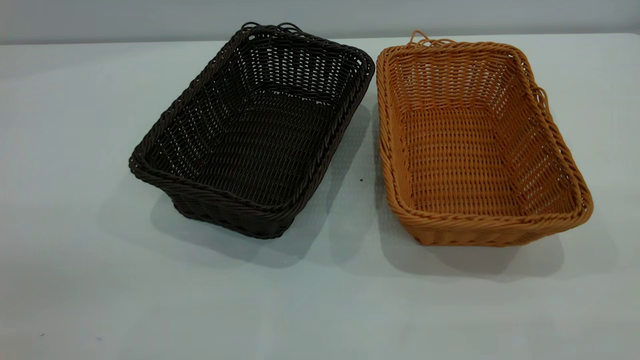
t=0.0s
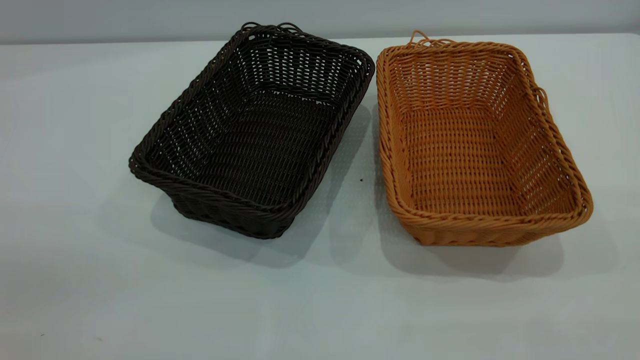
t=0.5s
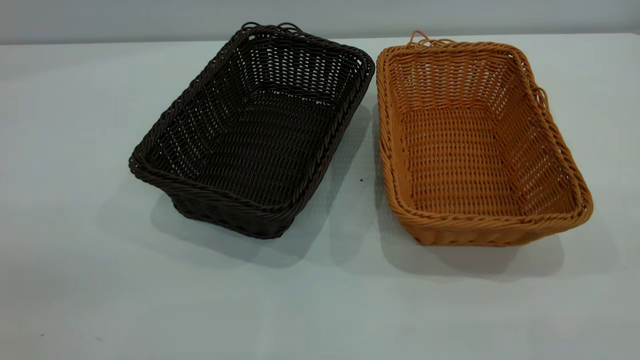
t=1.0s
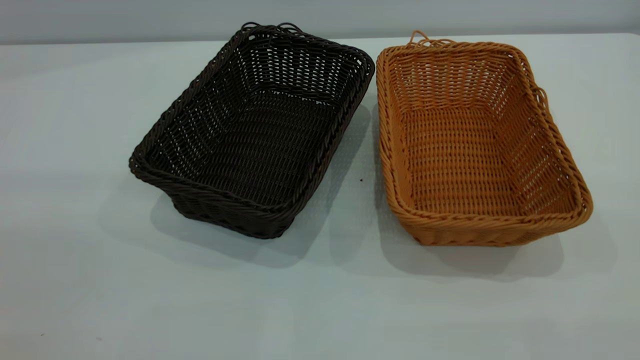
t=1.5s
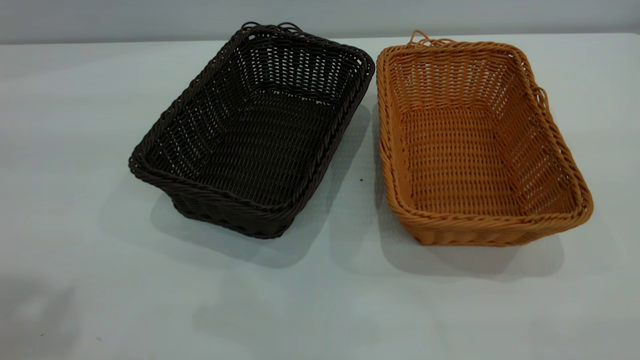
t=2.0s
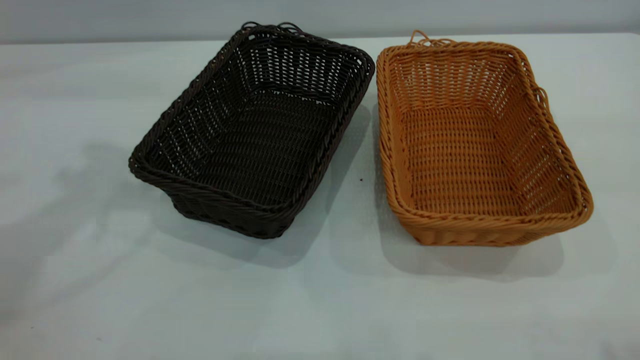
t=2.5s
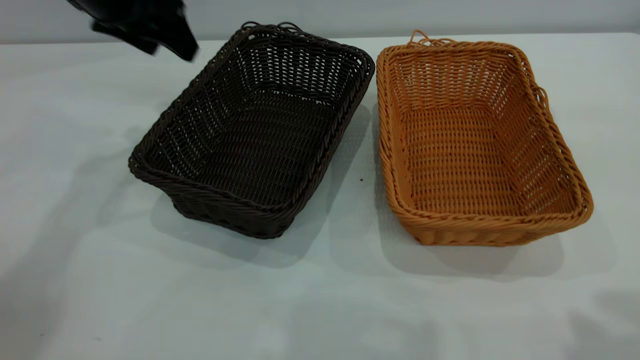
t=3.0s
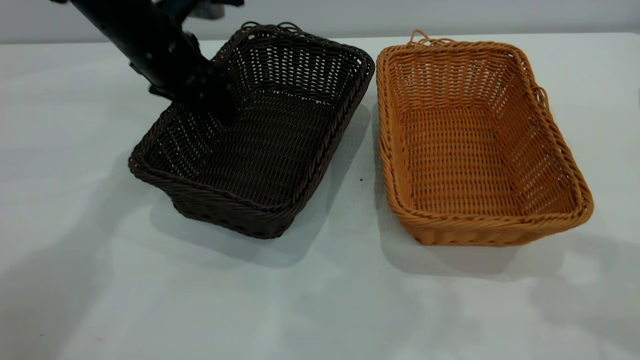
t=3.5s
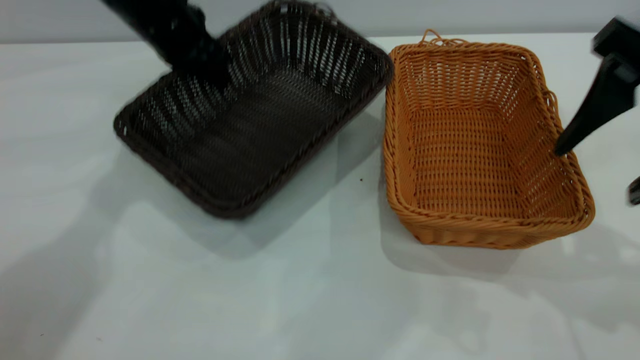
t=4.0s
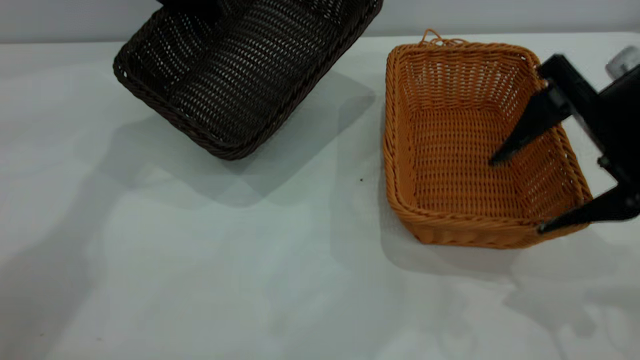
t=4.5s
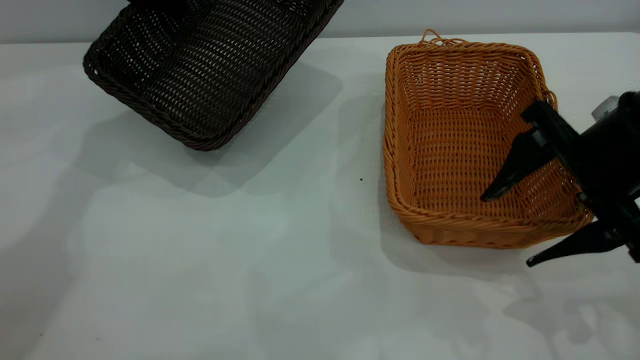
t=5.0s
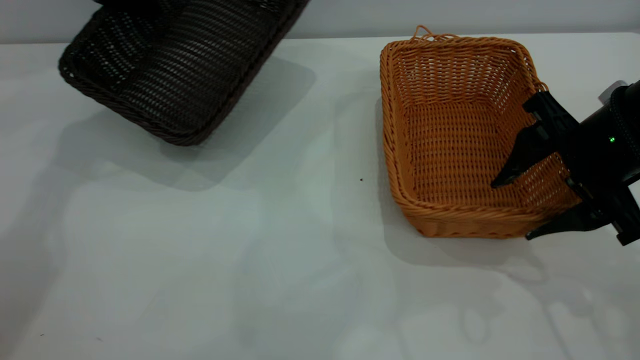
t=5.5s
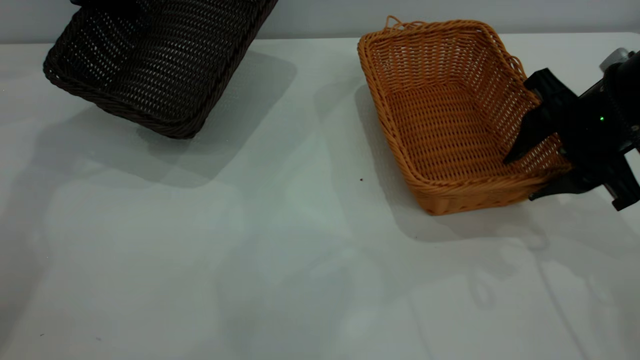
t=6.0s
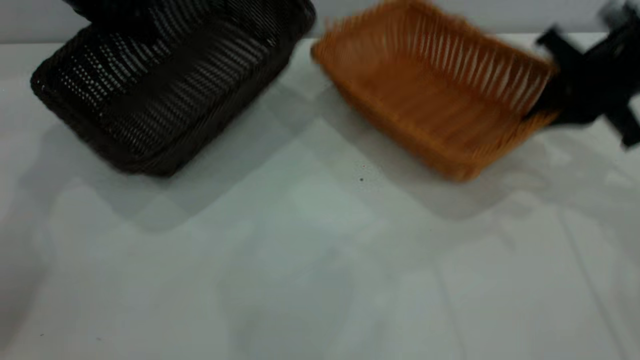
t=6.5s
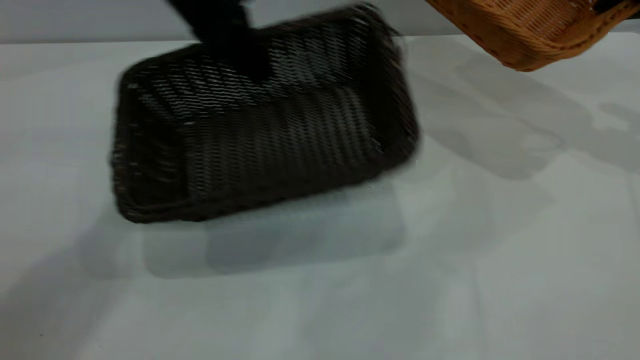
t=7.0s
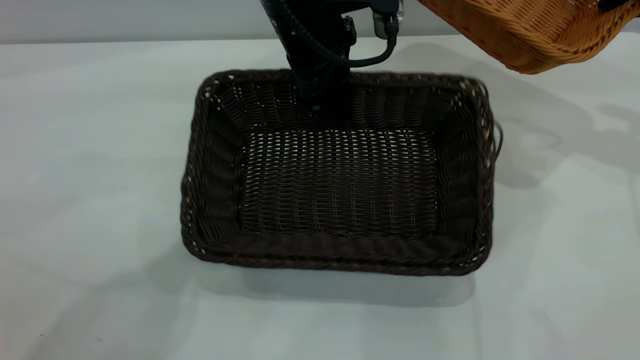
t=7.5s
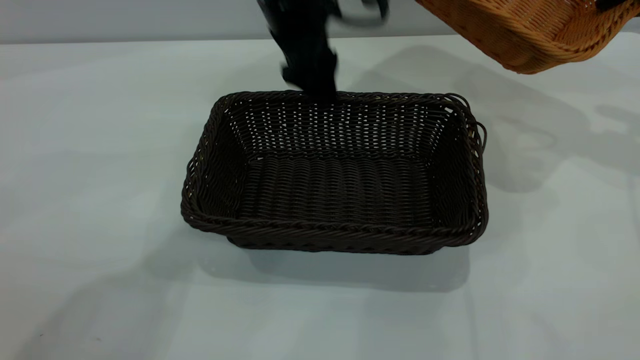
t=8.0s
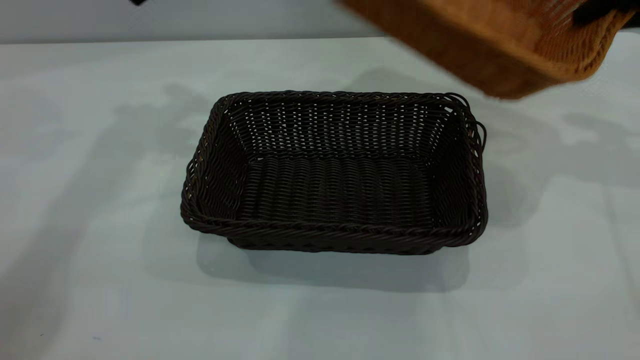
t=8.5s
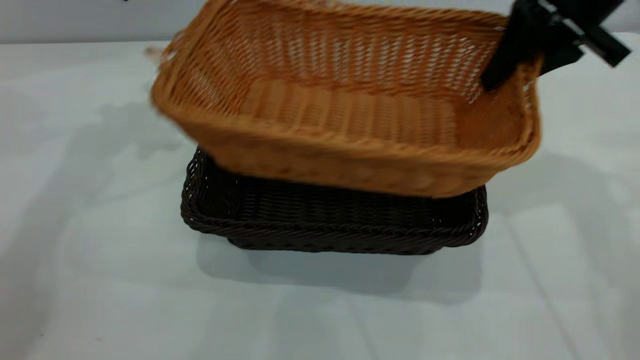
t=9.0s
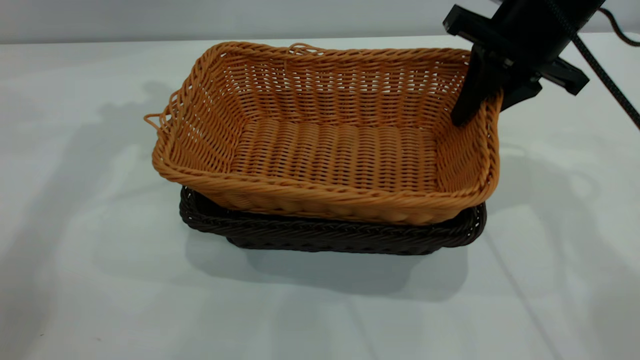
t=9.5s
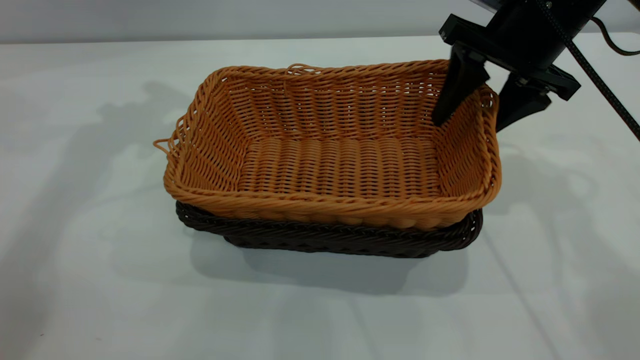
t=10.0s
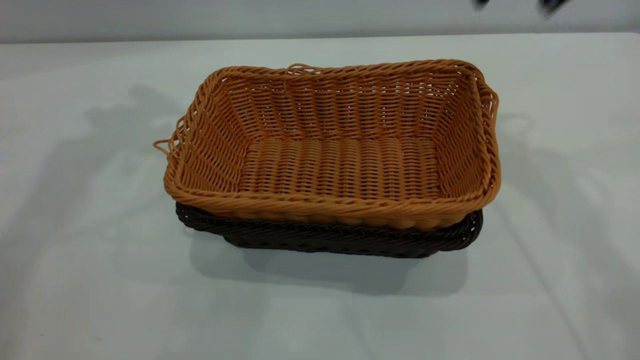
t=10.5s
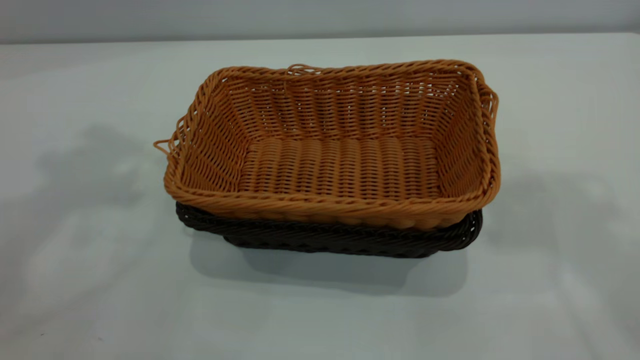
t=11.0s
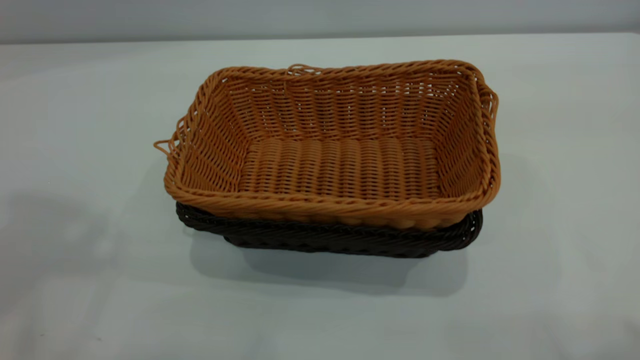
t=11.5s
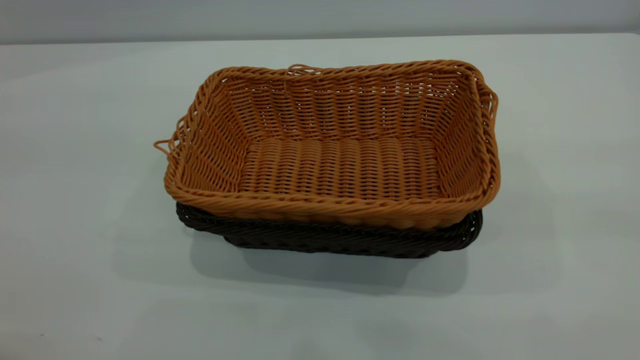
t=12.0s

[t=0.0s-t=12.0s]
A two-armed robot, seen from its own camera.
Task of the whole recording: the left gripper grasp the black basket and place it in the center of the table, the right gripper grasp the brown basket and place it inside the black one.
Step, t=0.0s to t=6.0s: Pick up the light basket with the right gripper.
Step, t=7.0s to t=8.0s: Move the dark basket to the center of view.
Step, t=8.5s to t=10.0s: Place the light basket on the dark basket.
t=2.0s to t=4.0s: The right gripper travels forward and downward by approximately 25 cm. Meanwhile the left gripper shifts some 35 cm forward and downward, and closes.
t=4.0s to t=6.0s: The right gripper heads downward and forward, covering some 10 cm, and closes up. Meanwhile the left gripper is displaced to the left by approximately 10 cm.
t=6.0s to t=8.0s: The left gripper is displaced to the right by about 25 cm, and opens up, while the right gripper moves to the right, upward and forward, roughly 20 cm, and closes its fingers.
t=8.0s to t=10.0s: Both grippers travel together to the left, about 20 cm. The right gripper opens its fingers.
t=10.0s to t=12.0s: The right gripper shifts approximately 40 cm backward and upward.
